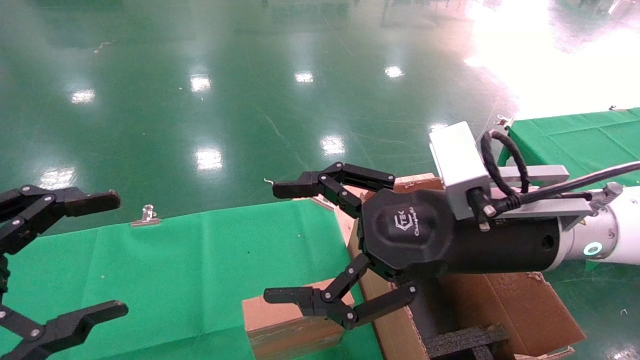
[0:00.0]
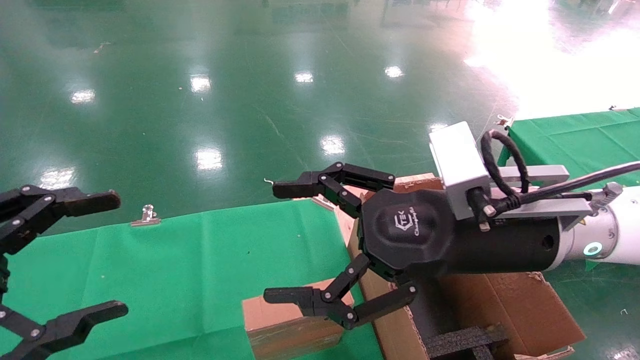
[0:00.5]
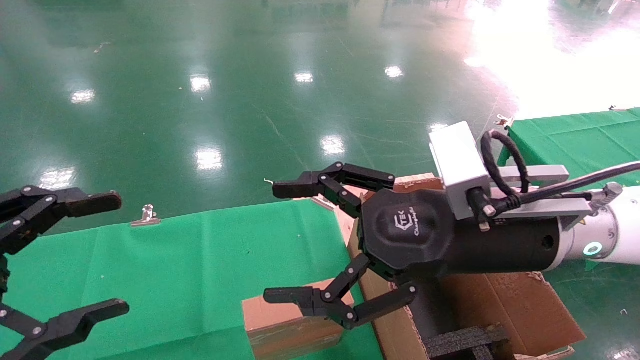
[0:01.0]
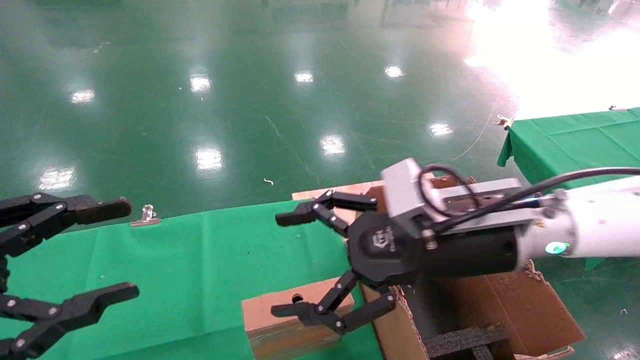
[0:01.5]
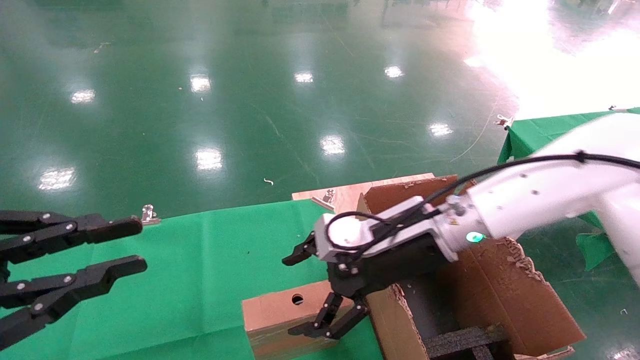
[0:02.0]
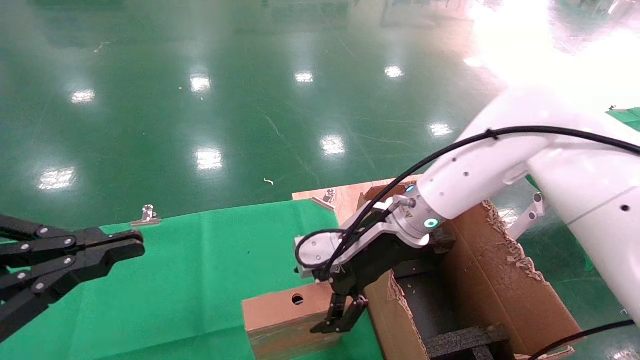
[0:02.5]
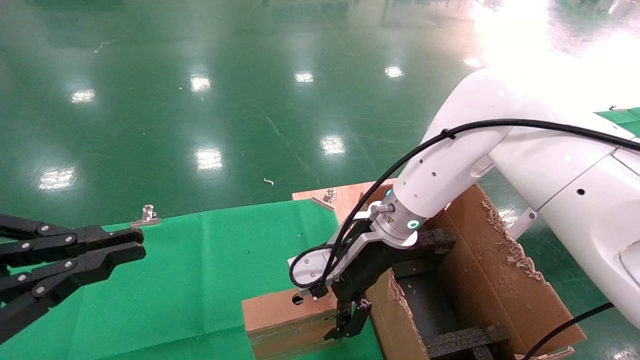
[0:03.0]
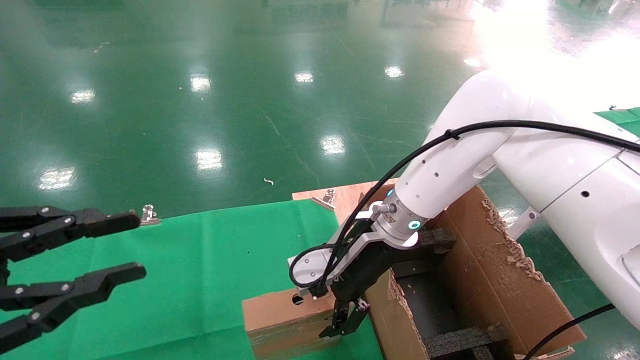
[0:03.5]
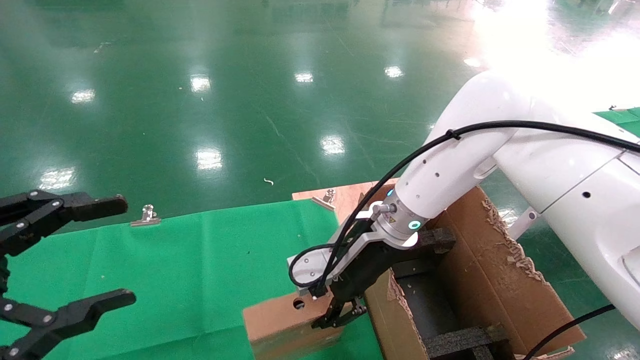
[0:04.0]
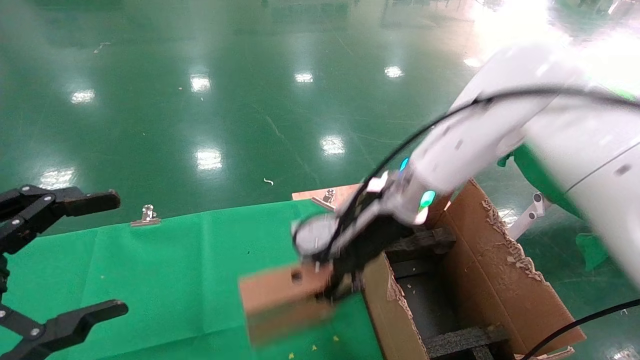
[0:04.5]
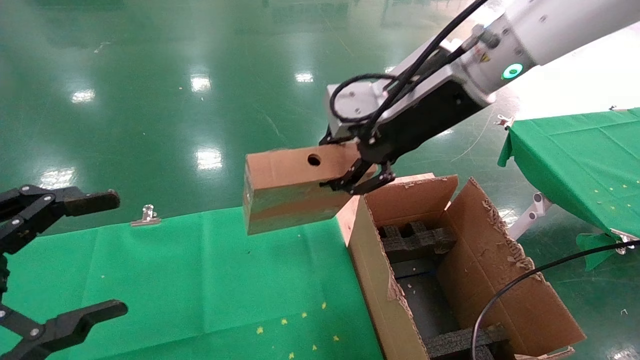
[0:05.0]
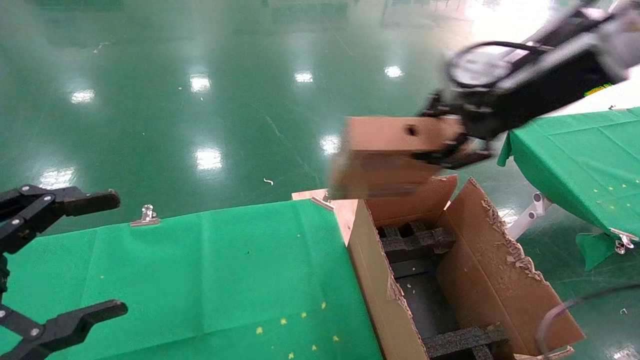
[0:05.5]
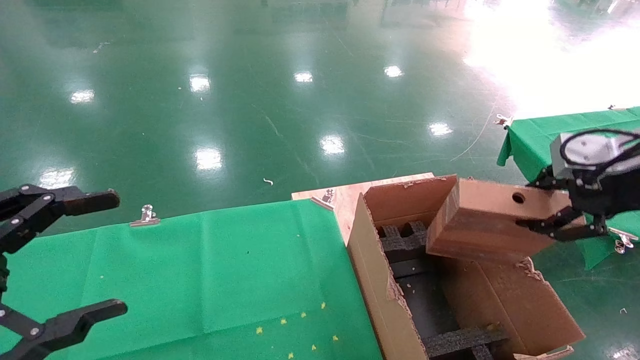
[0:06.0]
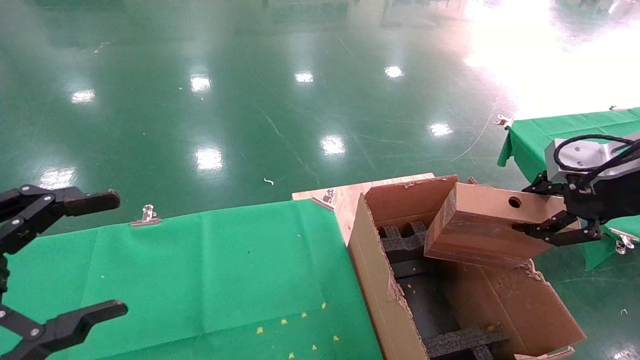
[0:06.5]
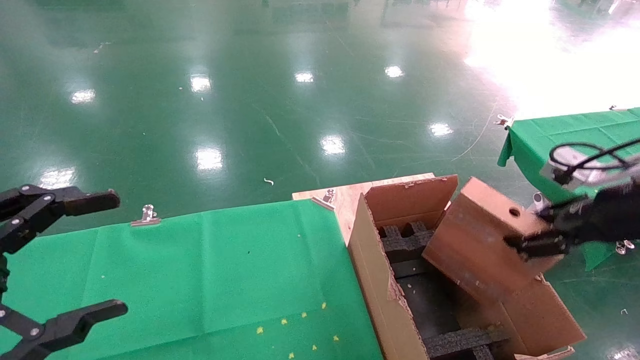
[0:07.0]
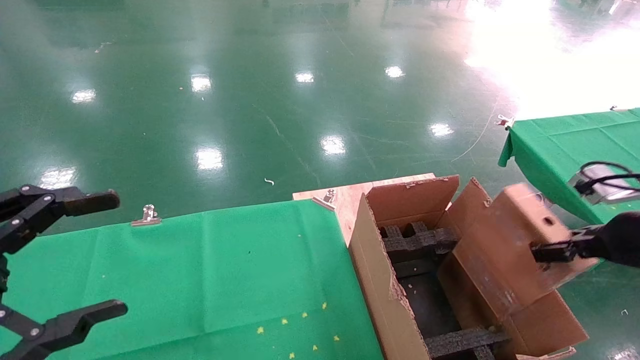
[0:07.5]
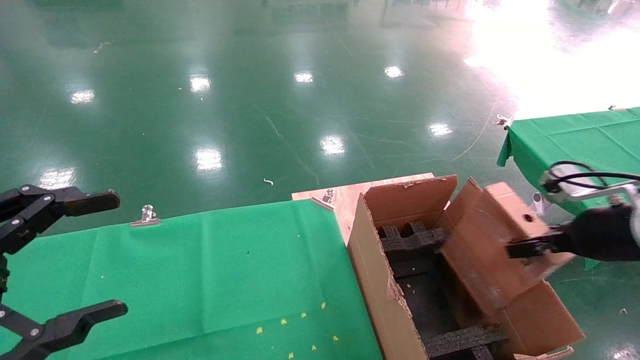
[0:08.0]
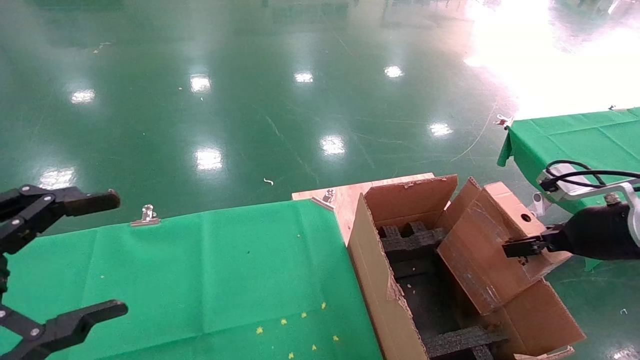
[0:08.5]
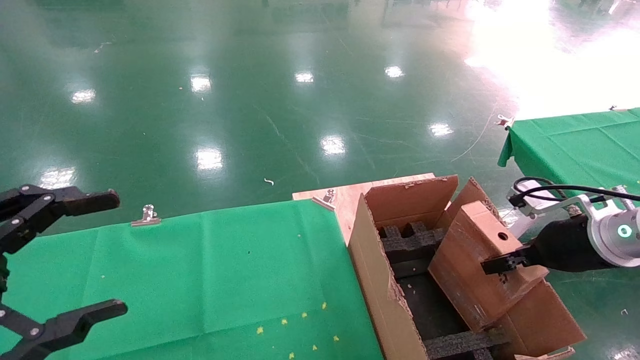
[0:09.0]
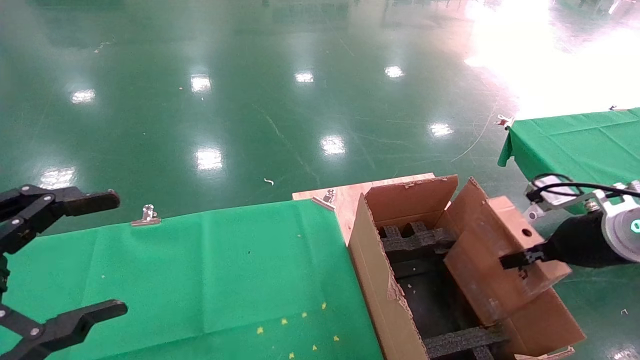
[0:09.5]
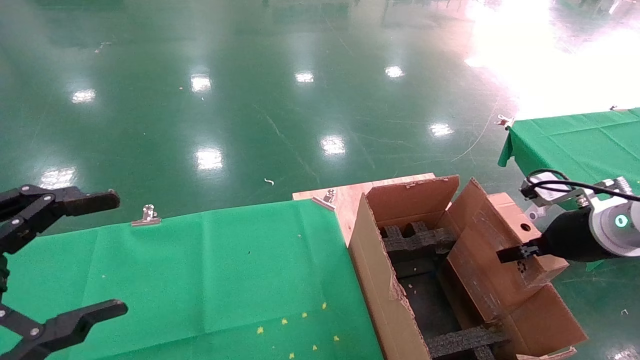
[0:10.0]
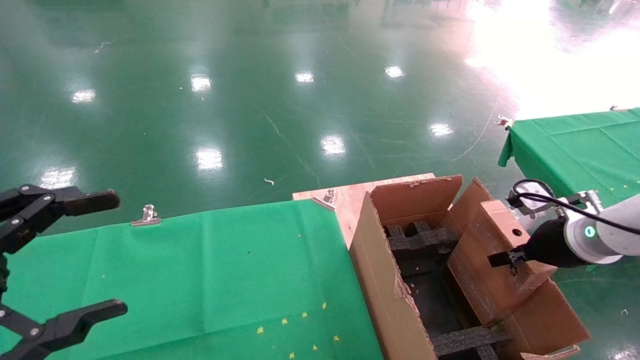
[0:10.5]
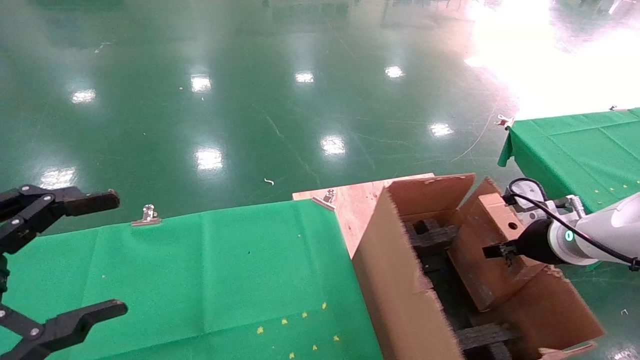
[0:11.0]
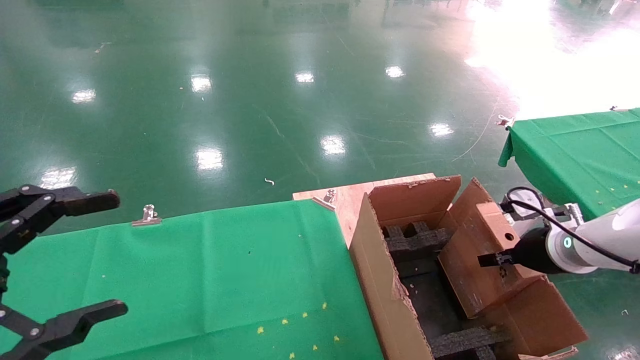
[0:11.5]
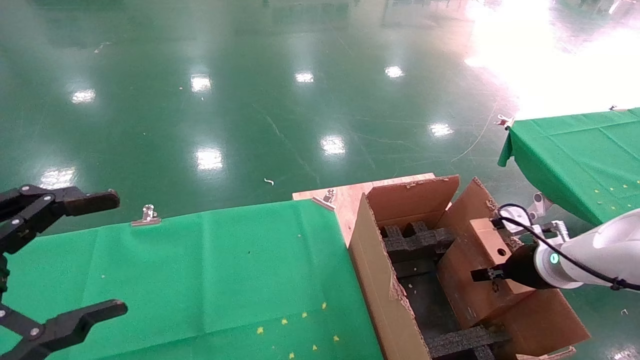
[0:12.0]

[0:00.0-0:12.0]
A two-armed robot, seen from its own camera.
Task of the whole recording: using a robotic arm to pick up a cardboard box and palace it the carton.
Step, 0:01.5 to 0:04.5: Pick up the mouse and the power cord paper box.
0:00.0 to 0:02.0: The left gripper closes, while the right gripper is displaced forward and downward by approximately 10 cm.
0:02.0 to 0:04.0: The right gripper shifts by some 5 cm, and closes its fingers.
0:04.0 to 0:06.0: The right gripper goes approximately 35 cm to the right, upward and backward.
0:06.0 to 0:08.0: The right gripper moves downward, roughly 10 cm.
0:08.0 to 0:10.0: There are only small adjustments of the grippers.
0:10.0 to 0:12.0: The right gripper goes some 10 cm downward.

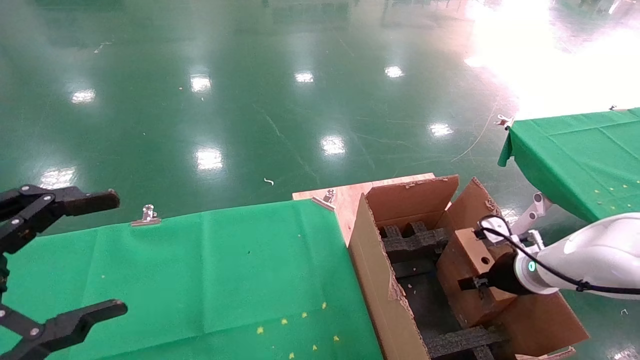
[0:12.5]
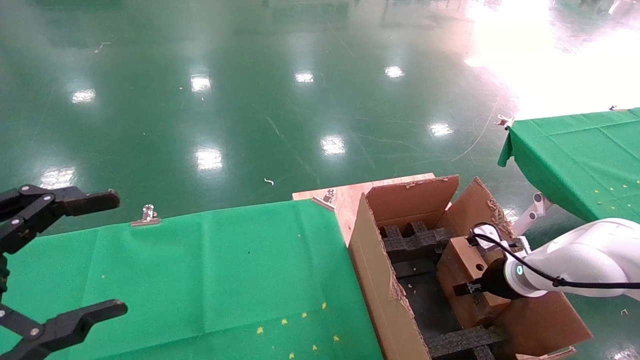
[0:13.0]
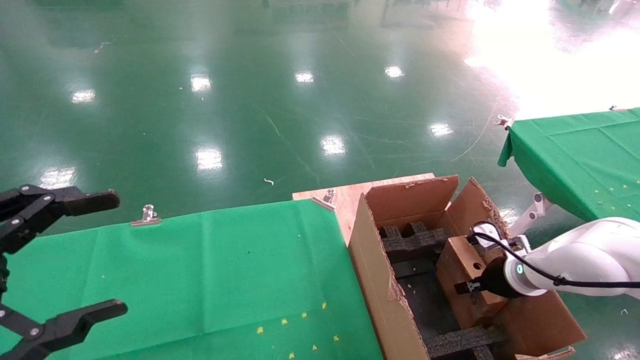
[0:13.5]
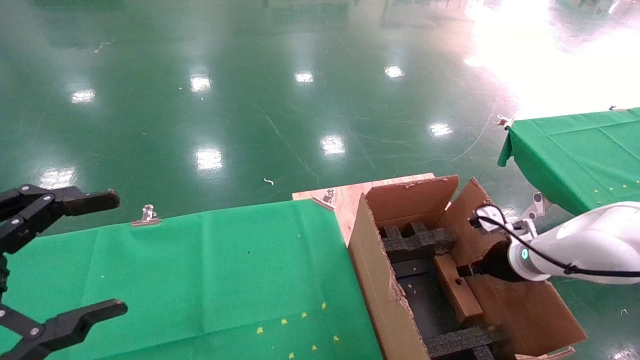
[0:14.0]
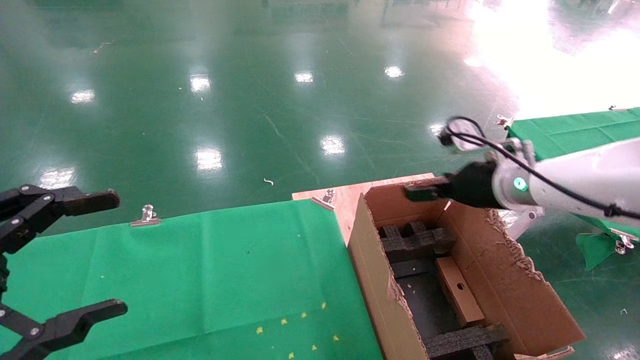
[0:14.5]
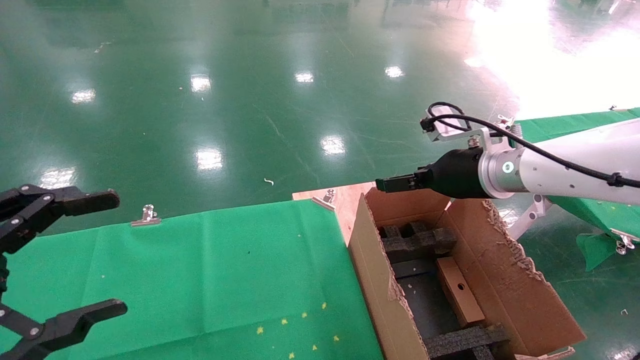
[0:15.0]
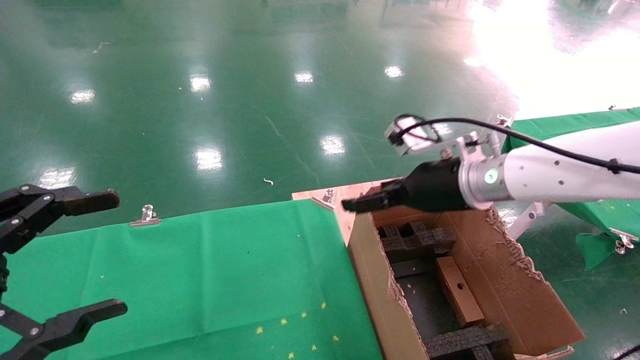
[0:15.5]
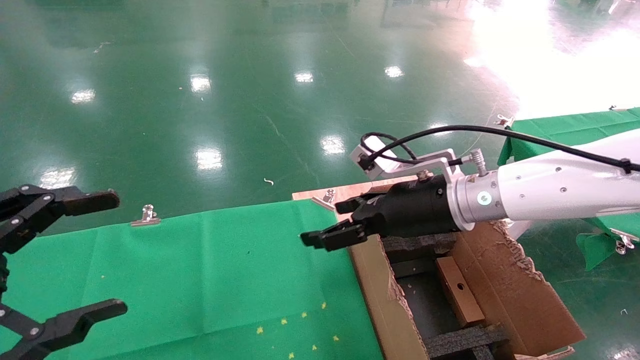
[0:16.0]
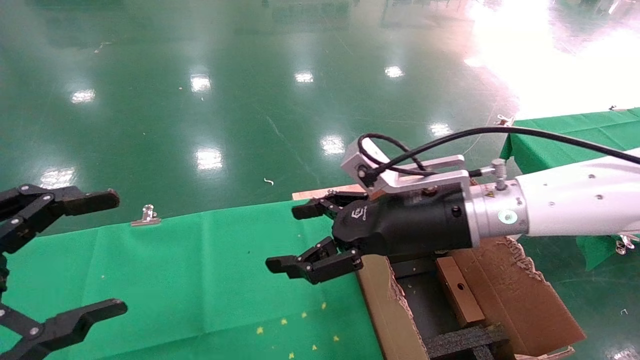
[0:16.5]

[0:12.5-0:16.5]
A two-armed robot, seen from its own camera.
Task of the whole recording: using a robotic arm to pick up a cardboard box and palace it the carton.
0:12.5 to 0:14.5: The right gripper is displaced upward and to the left by some 15 cm, and opens its fingers.
0:14.5 to 0:16.5: The right gripper shifts some 15 cm to the left and backward.
